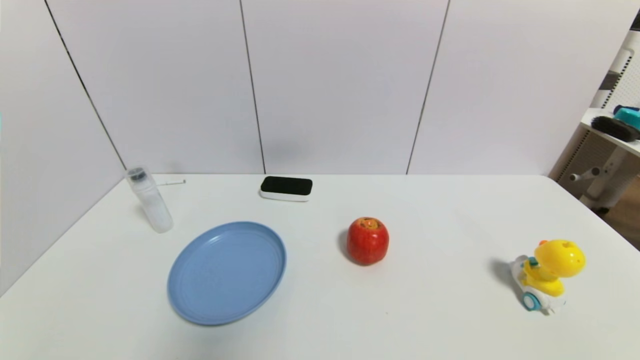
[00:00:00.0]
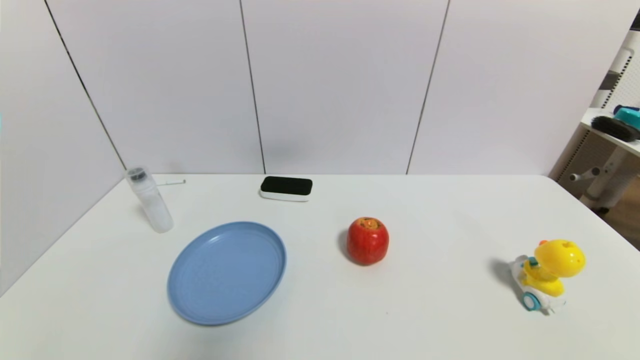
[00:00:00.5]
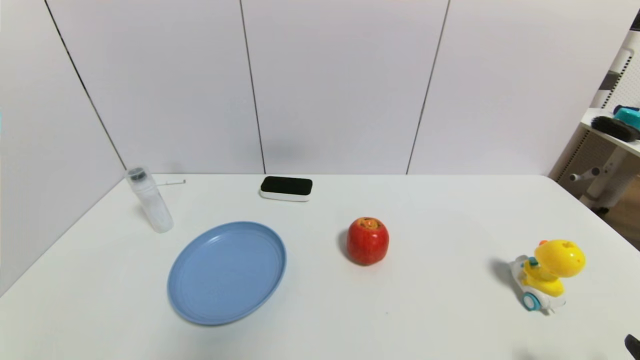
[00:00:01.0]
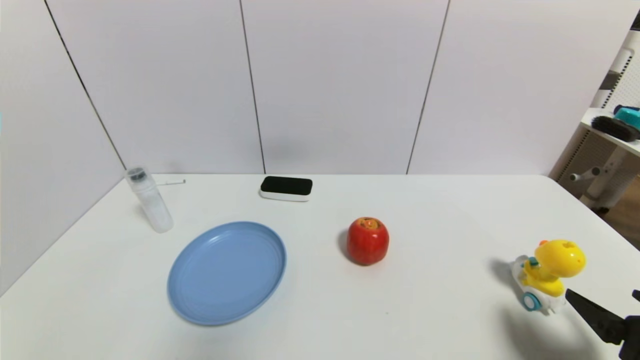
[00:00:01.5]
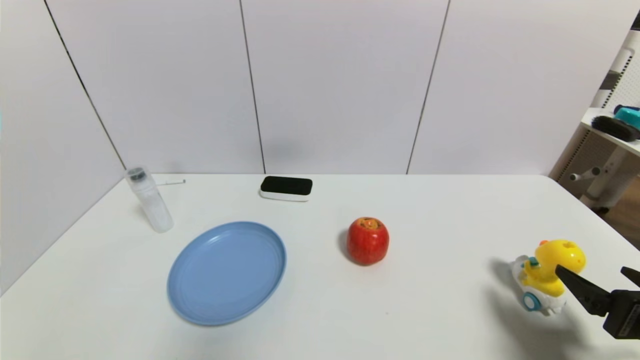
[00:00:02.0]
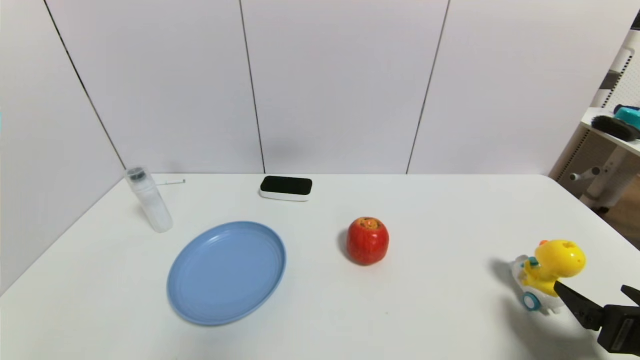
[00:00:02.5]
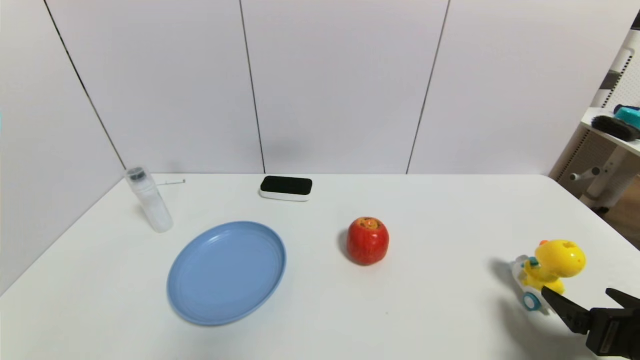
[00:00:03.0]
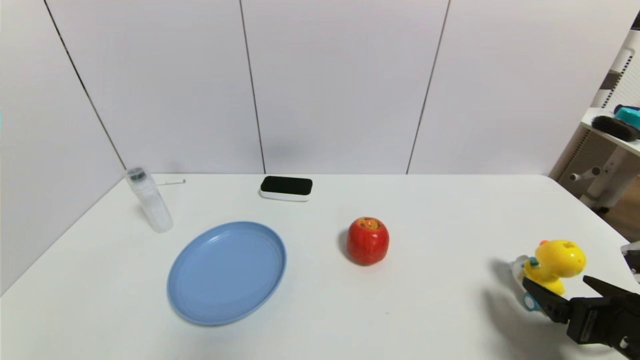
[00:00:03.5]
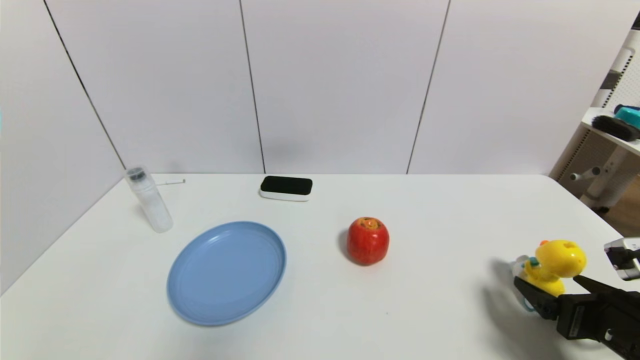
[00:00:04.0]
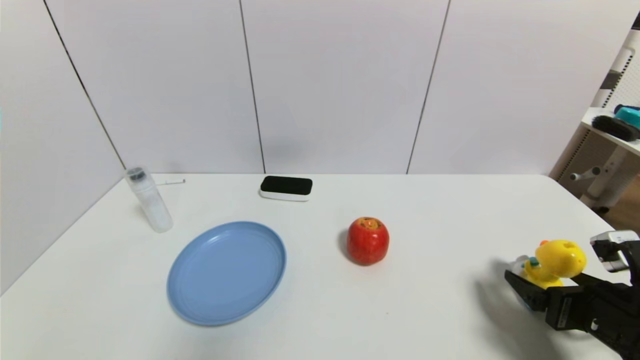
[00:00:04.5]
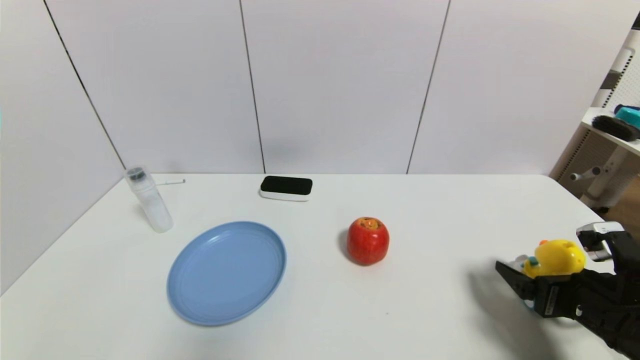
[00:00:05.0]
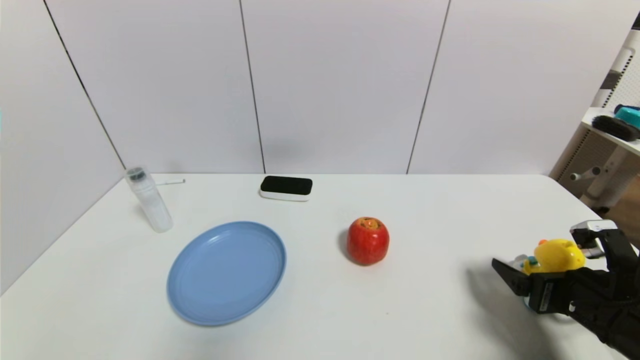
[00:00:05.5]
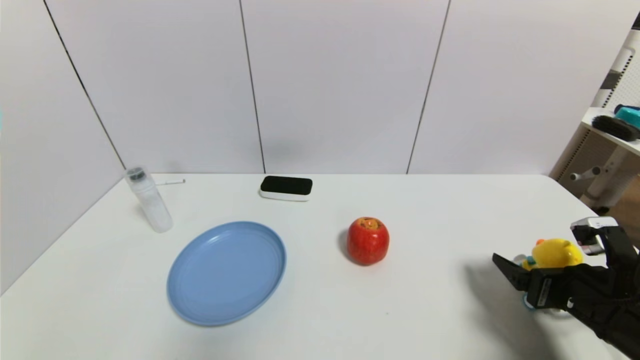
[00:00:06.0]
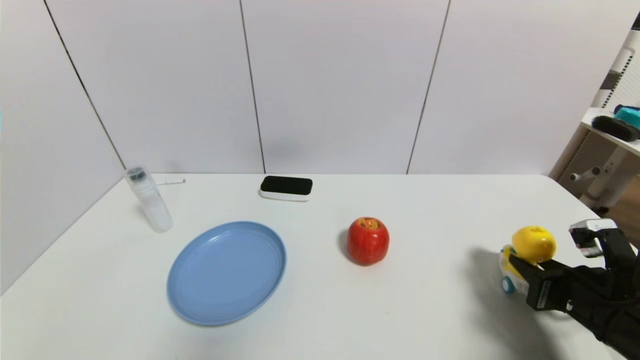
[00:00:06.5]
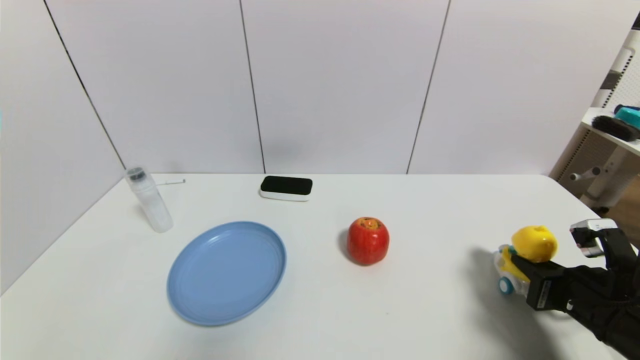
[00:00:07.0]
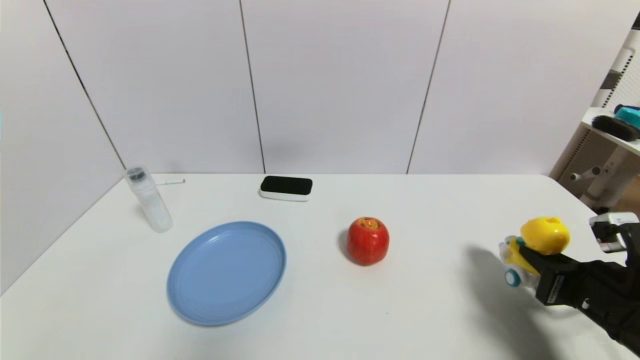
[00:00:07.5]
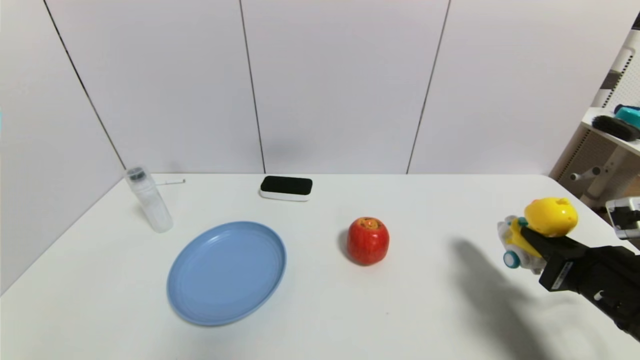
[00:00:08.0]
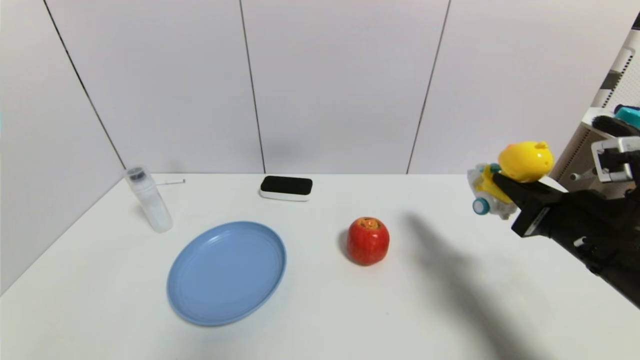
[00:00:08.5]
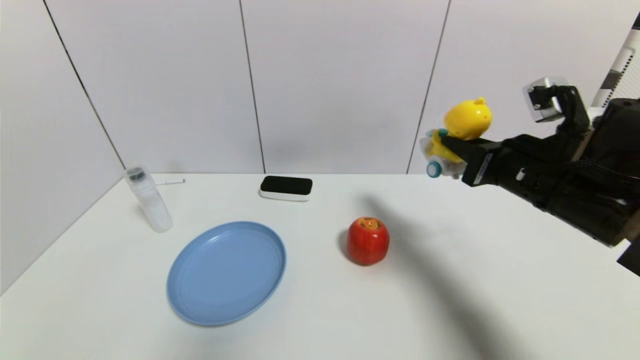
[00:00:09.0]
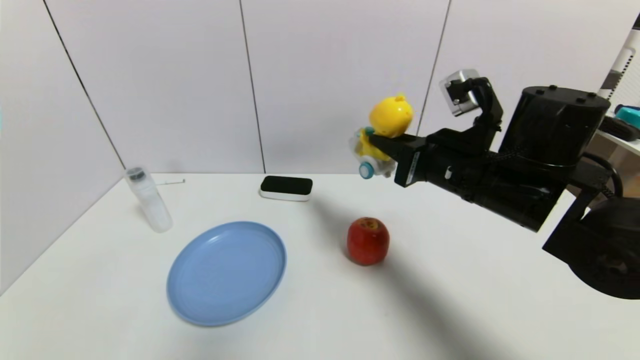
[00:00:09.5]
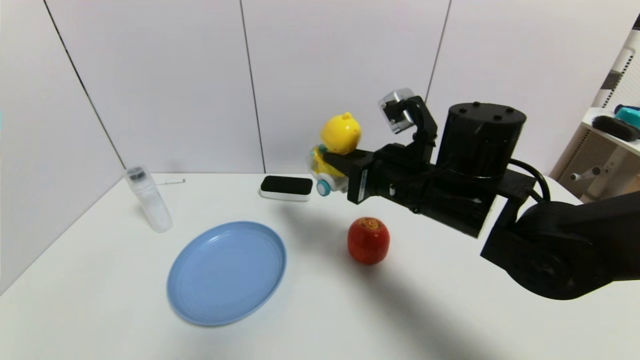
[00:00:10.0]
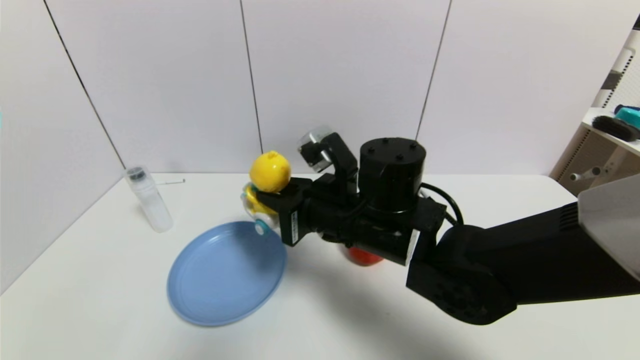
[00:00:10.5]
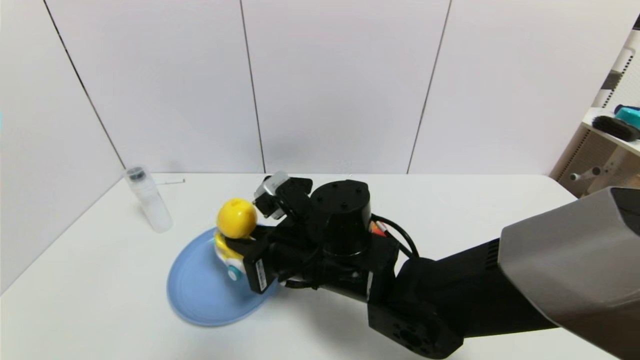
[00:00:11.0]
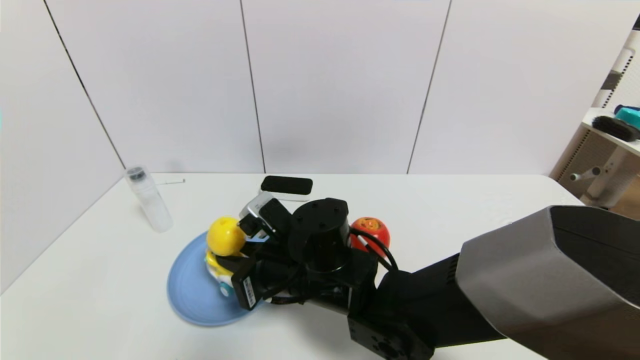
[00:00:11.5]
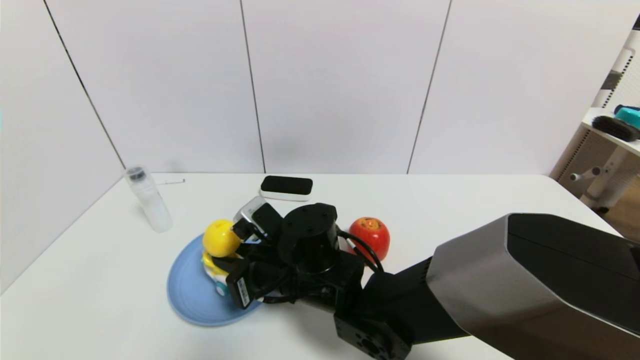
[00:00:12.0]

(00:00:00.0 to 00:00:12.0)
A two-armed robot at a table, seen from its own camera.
Task of the whole recording: use a gripper to pick the target object and place on the blue plate.
Step, 00:00:00.0 - 00:00:06.5: Grasp the duck toy with the right gripper.
00:00:00.0 - 00:00:02.0: The right gripper moves forward and upward, about 15 cm.
00:00:02.0 - 00:00:04.0: The grippers move only a little.
00:00:04.0 - 00:00:06.0: The grippers make only small movements.
00:00:06.0 - 00:00:08.0: The right gripper closes up.
00:00:08.0 - 00:00:10.0: The right gripper goes approximately 25 cm to the left, forward and upward.
00:00:10.0 - 00:00:12.0: The right gripper shifts approximately 20 cm to the left and downward.

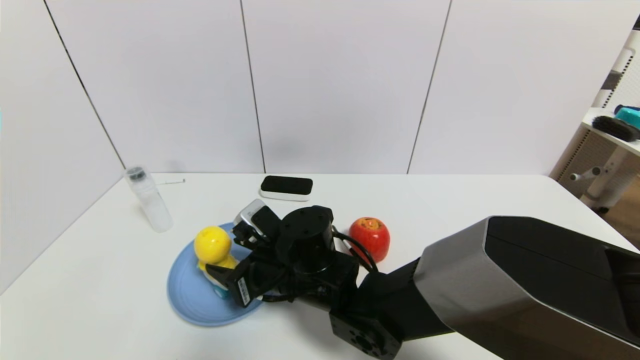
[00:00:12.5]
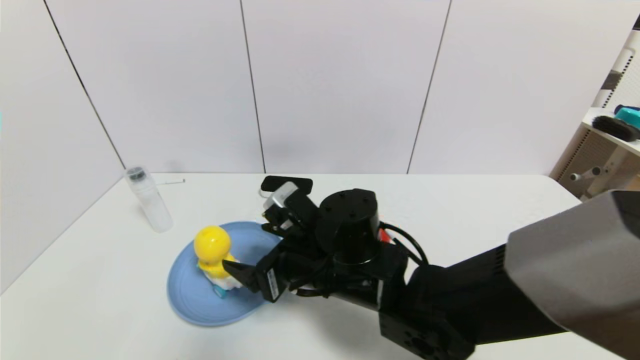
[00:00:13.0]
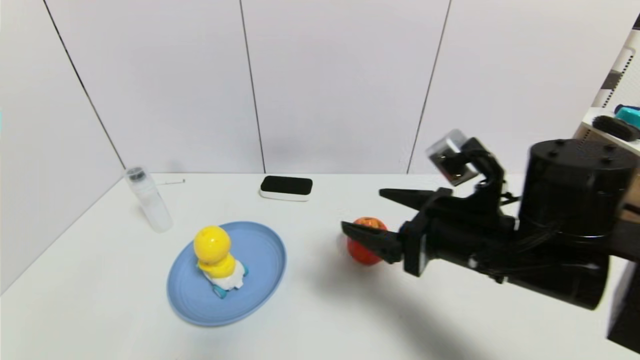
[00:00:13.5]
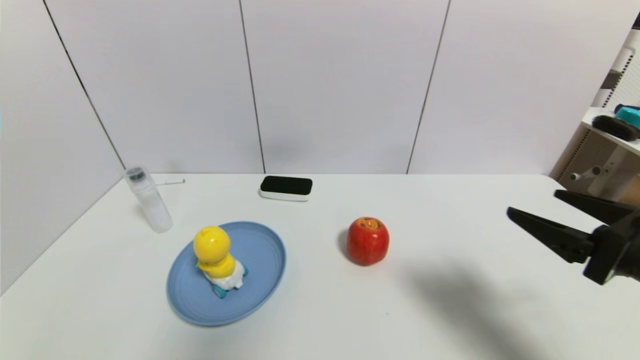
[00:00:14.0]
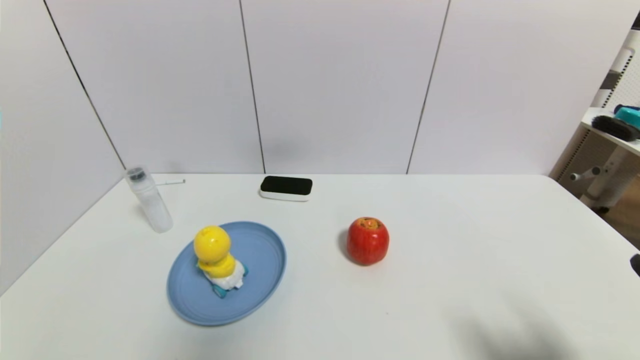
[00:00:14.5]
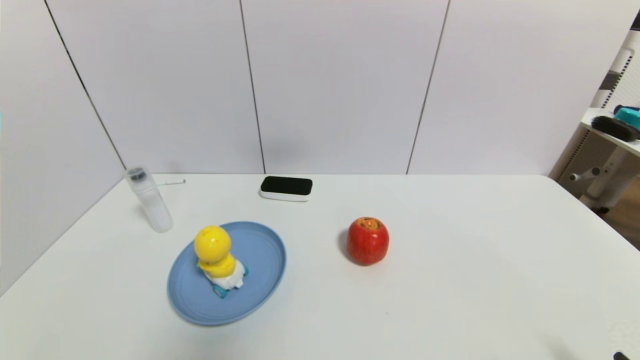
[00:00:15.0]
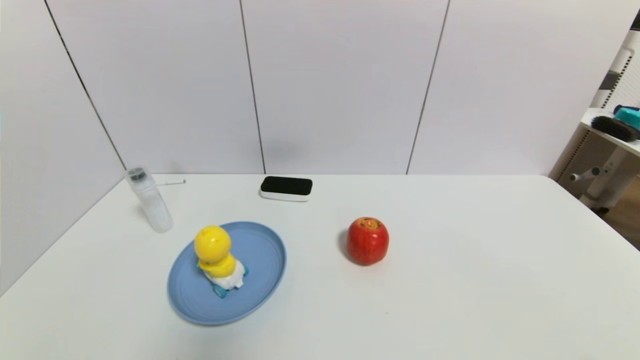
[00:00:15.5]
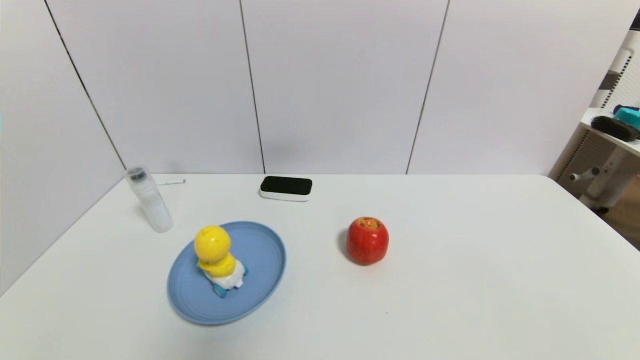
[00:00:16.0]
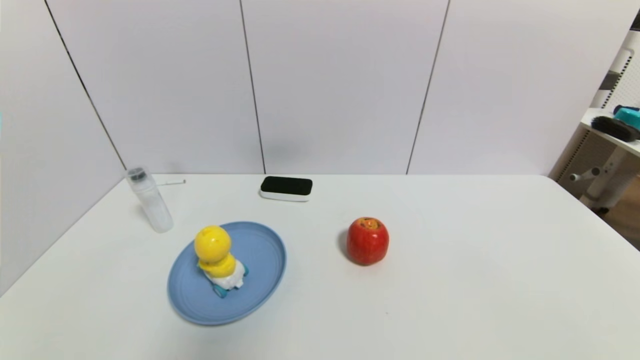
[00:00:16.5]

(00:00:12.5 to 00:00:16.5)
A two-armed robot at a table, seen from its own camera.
Task of the whole recording: use a gripper to pick the target object and place on the blue plate.
00:00:12.5 - 00:00:14.5: The right gripper is displaced to the right and backward by about 40 cm, and opens up.
00:00:14.5 - 00:00:16.5: The right gripper shifts approximately 15 cm downward and backward.
